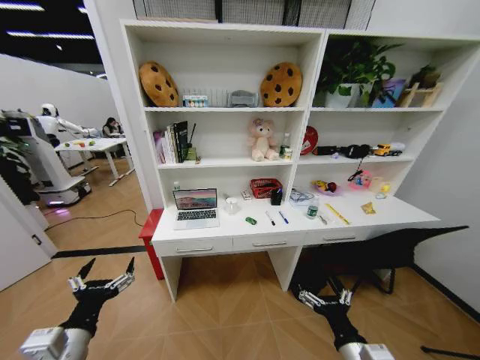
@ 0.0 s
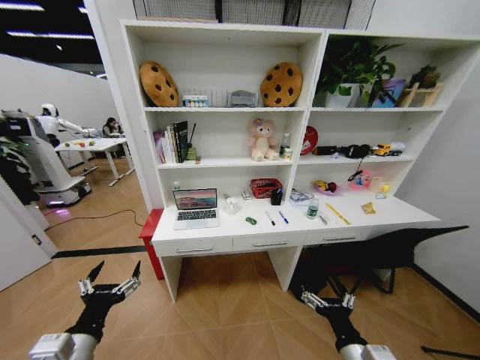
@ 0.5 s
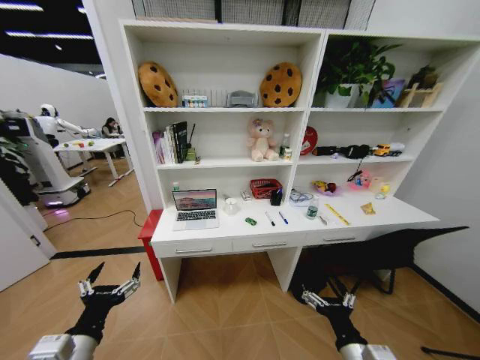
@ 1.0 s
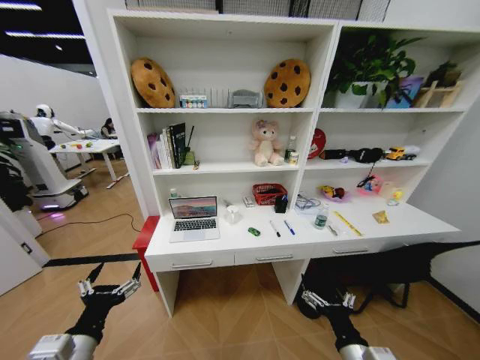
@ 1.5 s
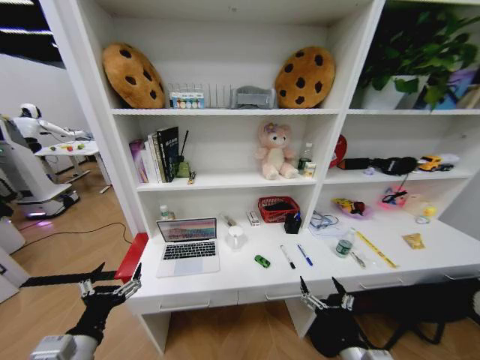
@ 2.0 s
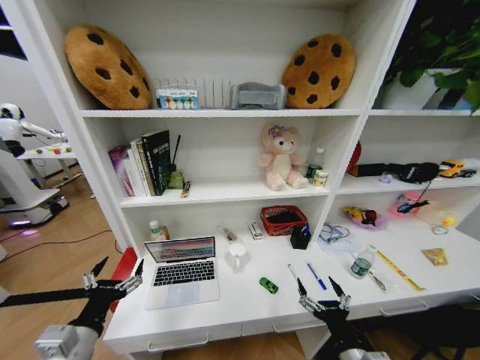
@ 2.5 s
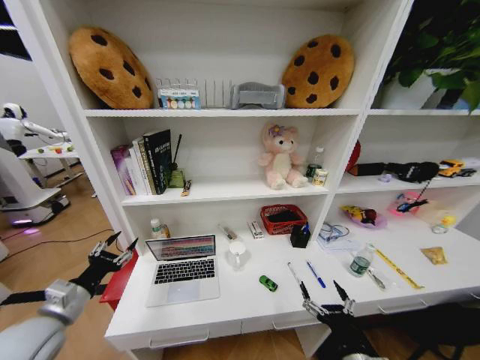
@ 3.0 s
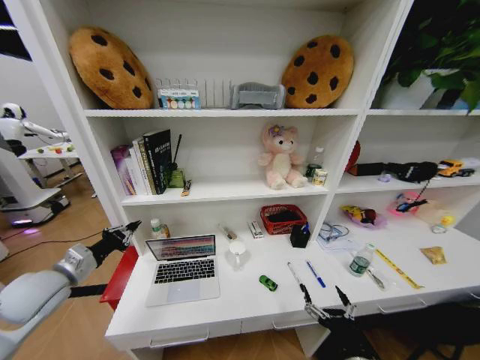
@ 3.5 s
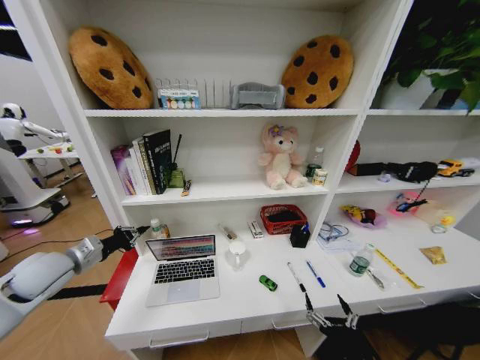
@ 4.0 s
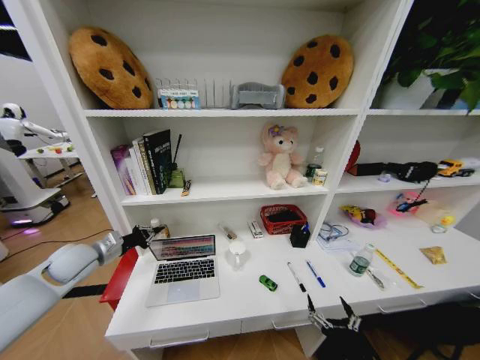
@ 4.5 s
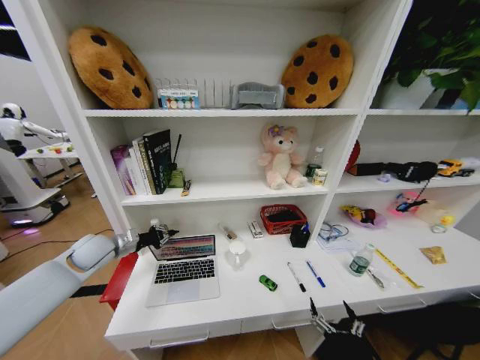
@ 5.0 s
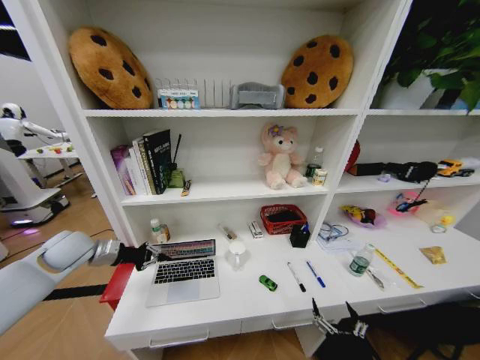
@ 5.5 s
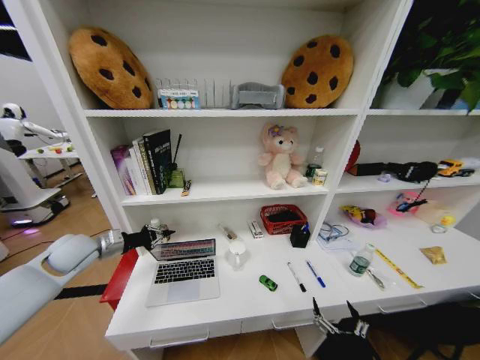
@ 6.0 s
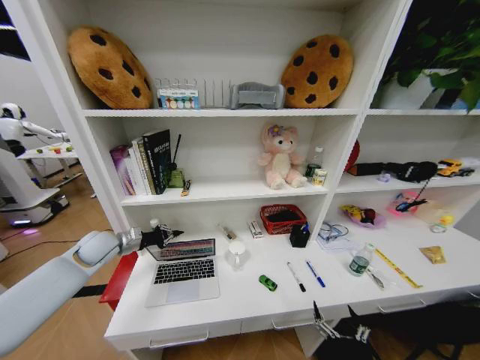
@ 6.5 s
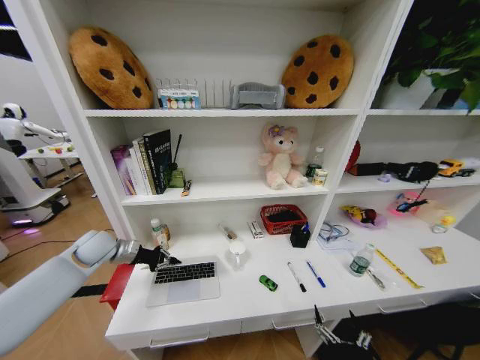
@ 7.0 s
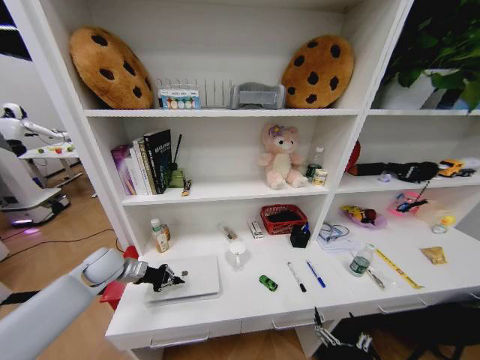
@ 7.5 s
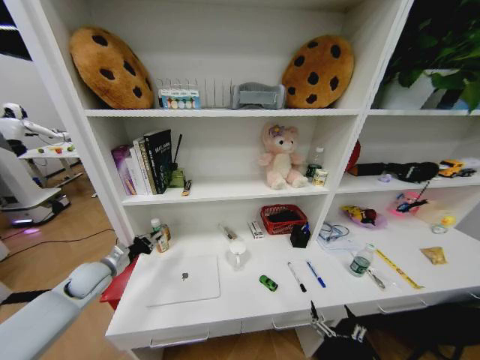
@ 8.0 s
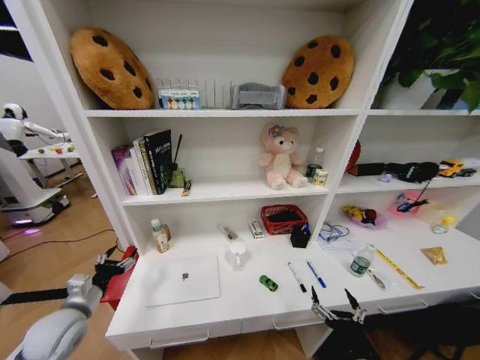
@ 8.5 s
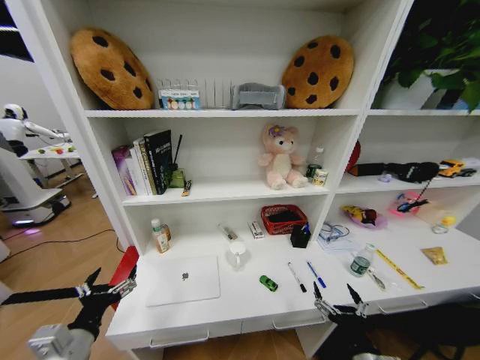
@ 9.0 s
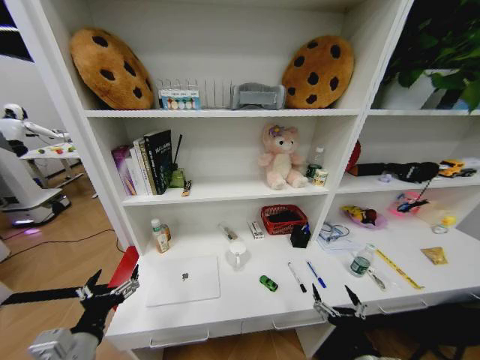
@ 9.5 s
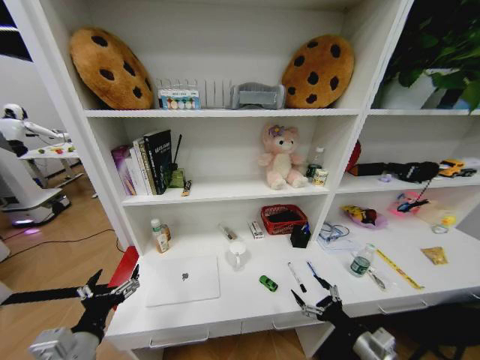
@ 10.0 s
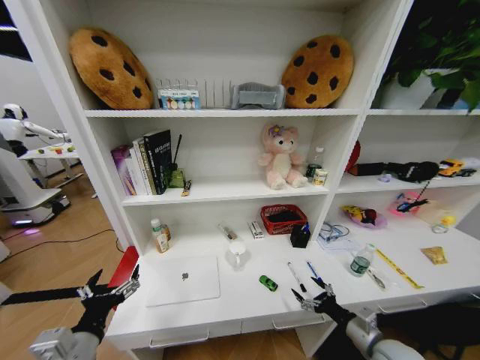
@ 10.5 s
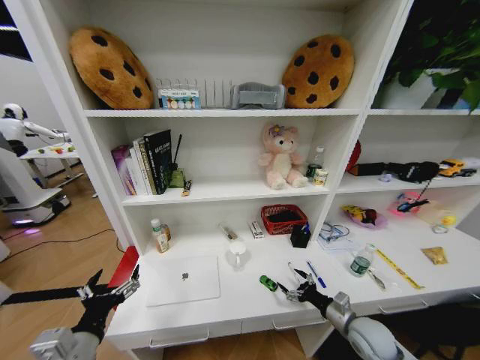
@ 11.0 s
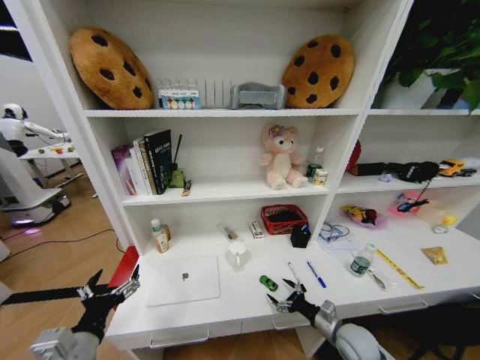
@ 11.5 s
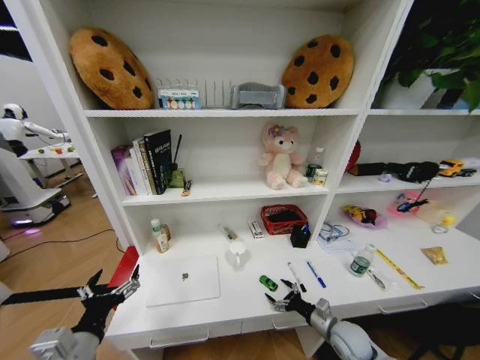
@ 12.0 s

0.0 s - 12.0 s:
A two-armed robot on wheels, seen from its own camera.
Task of the whole recording: Organize the objects on the table.
2.0 s - 4.0 s: The right gripper moves downward, approximately 5 cm. Meanwhile the left gripper goes about 25 cm forward and to the left, and closes its fingers.
4.0 s - 6.0 s: The left gripper travels forward by roughly 5 cm.
6.0 s - 8.0 s: The left gripper goes approximately 10 cm downward.
8.0 s - 10.0 s: The right gripper is displaced to the right and forward by roughly 10 cm. The left gripper travels backward and to the right by roughly 25 cm, and opens its fingers.
10.0 s - 12.0 s: The right gripper shifts about 15 cm forward and downward.

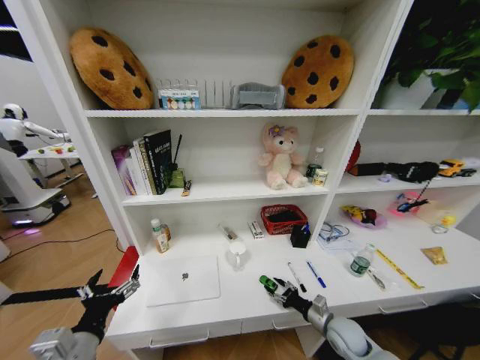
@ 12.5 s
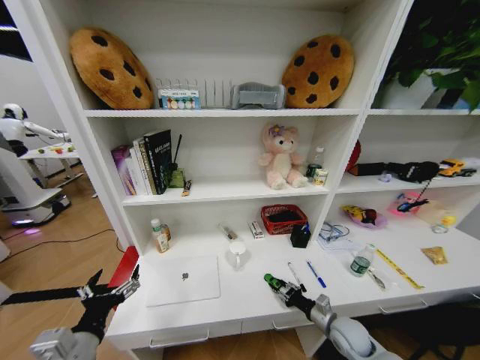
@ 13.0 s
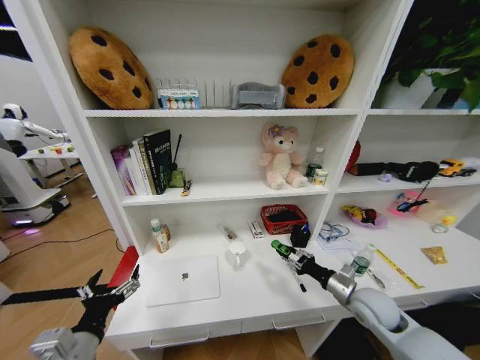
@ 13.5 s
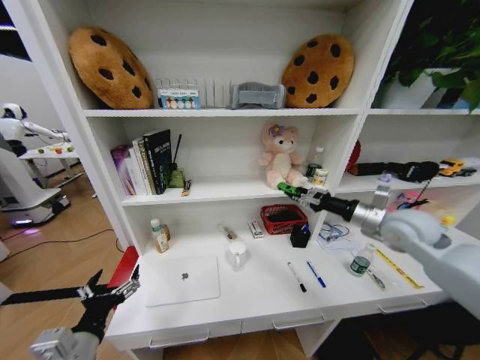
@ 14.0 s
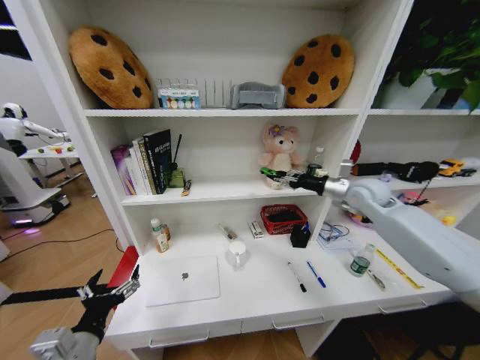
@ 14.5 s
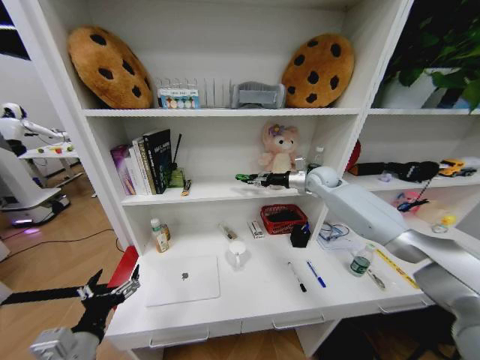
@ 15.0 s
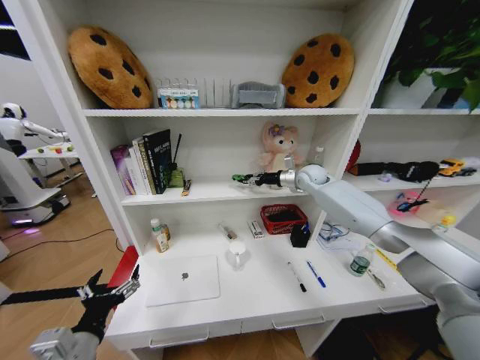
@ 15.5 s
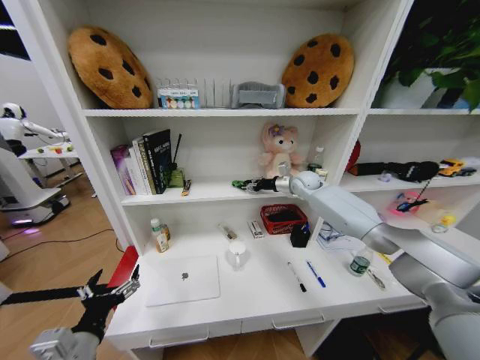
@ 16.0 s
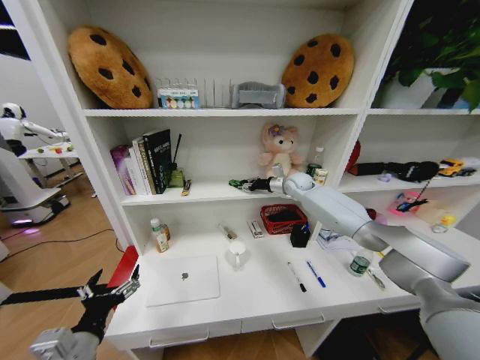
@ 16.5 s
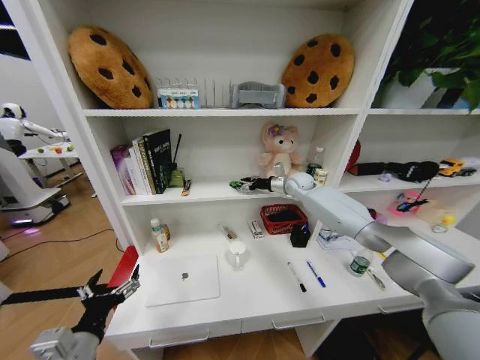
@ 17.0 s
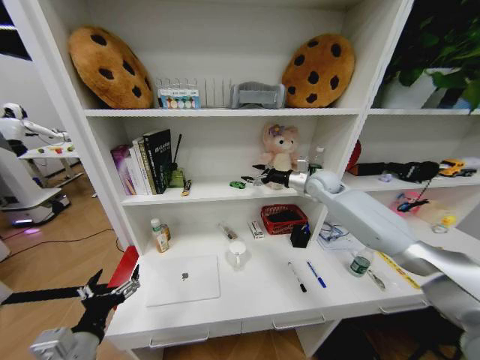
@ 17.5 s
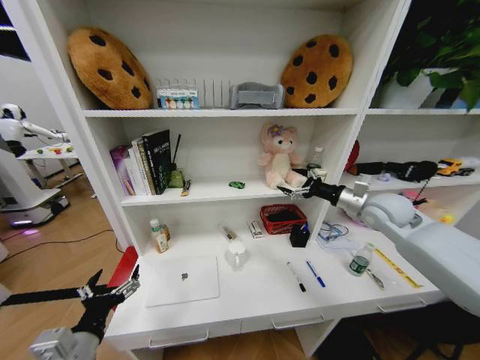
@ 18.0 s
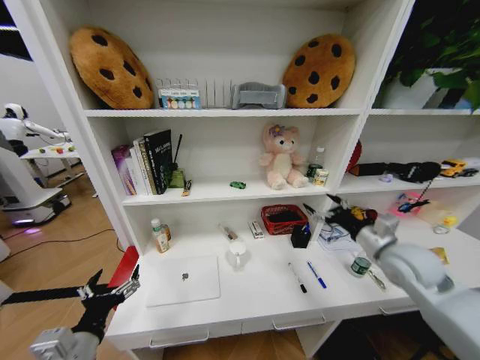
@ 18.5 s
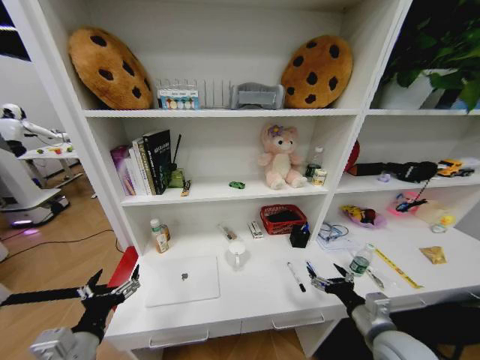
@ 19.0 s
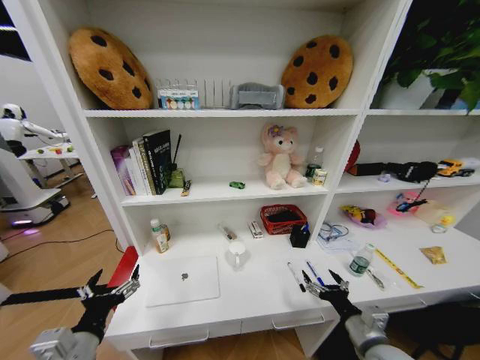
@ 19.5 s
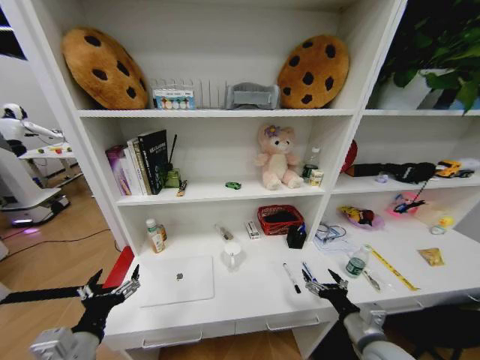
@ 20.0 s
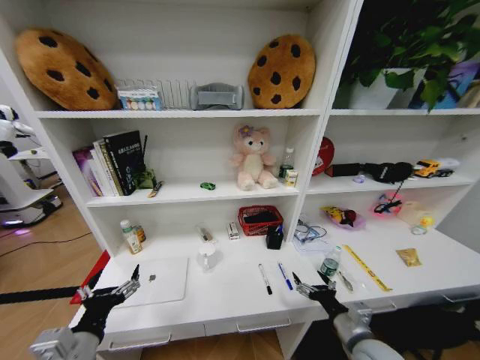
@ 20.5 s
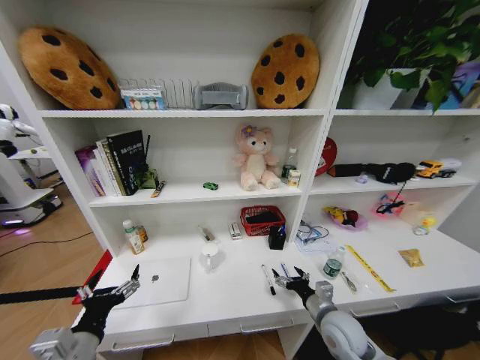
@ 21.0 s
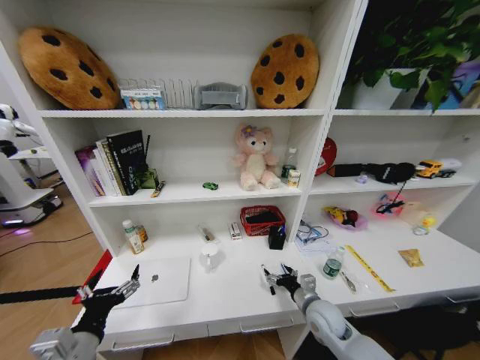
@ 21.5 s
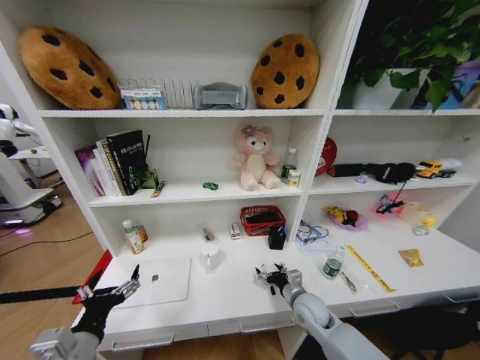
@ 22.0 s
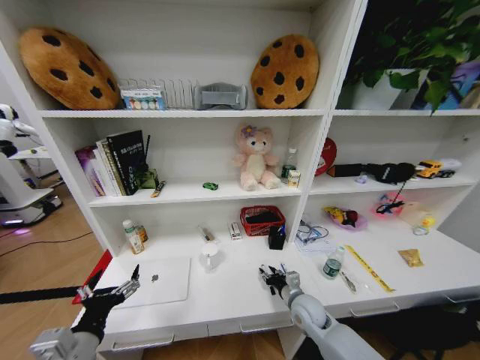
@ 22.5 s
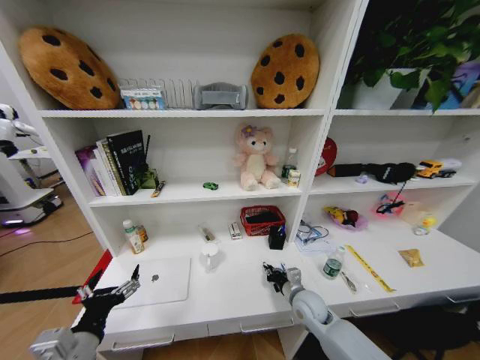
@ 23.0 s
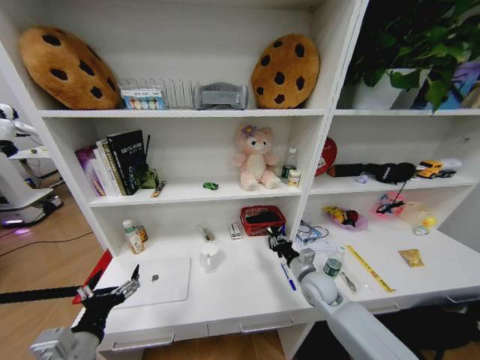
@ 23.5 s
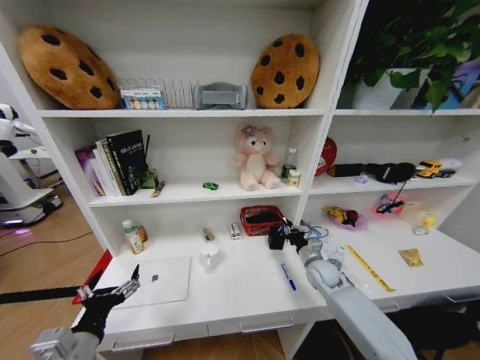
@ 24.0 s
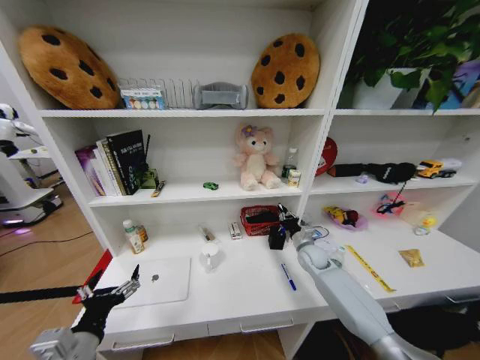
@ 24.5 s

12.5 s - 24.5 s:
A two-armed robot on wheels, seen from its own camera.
Task of the whole recording: Organize the objects on the table.
12.5 s - 14.5 s: The right gripper shifts about 40 cm upward and forward.
14.5 s - 16.5 s: The right gripper travels forward and to the left by roughly 20 cm.
16.5 s - 18.5 s: The right gripper is displaced backward and to the right by about 35 cm, and opens up.
18.5 s - 20.5 s: The right gripper heads downward, backward and to the left, covering about 25 cm.
20.5 s - 22.5 s: The right gripper is displaced forward, to the left and downward by approximately 15 cm, and closes.
22.5 s - 24.5 s: The right gripper goes roughly 15 cm forward and to the right, and closes.

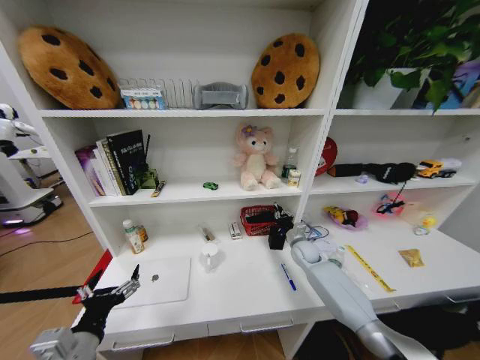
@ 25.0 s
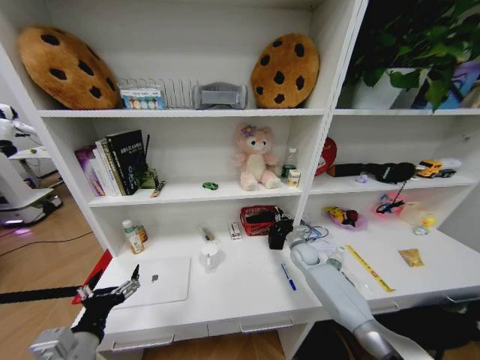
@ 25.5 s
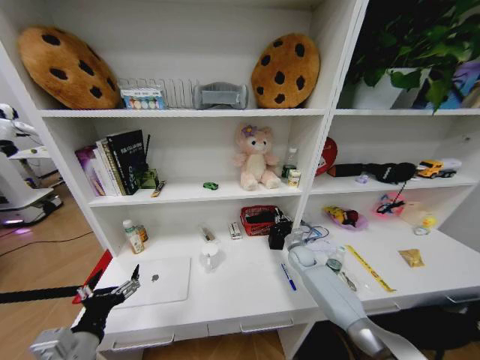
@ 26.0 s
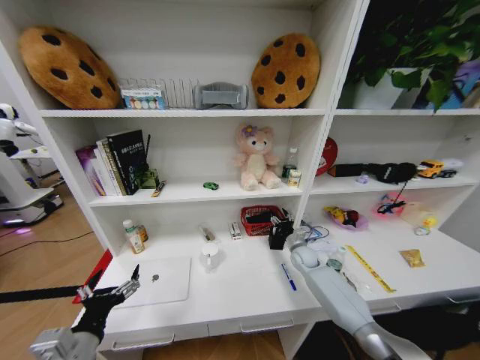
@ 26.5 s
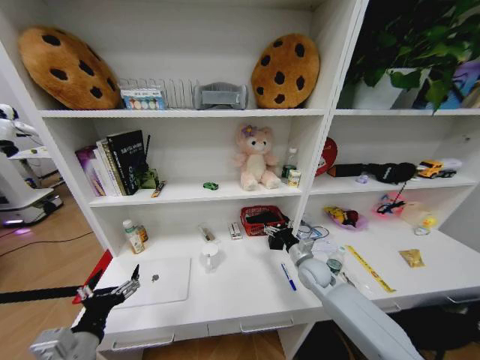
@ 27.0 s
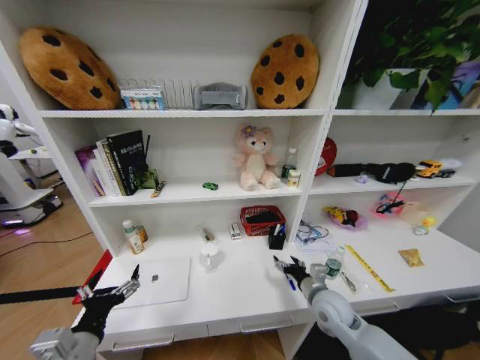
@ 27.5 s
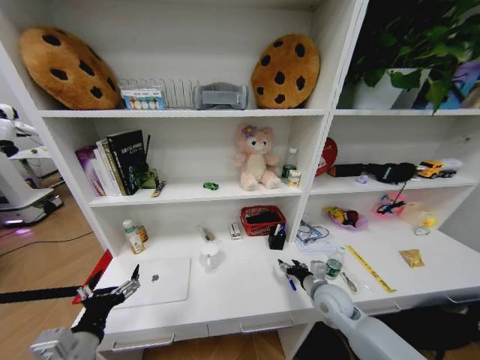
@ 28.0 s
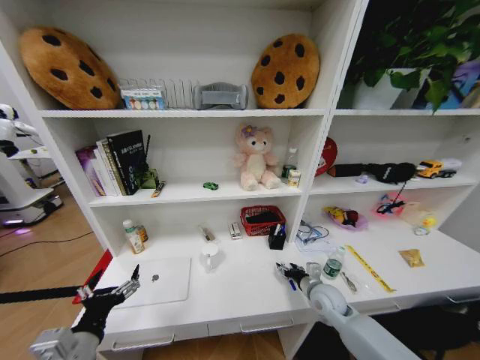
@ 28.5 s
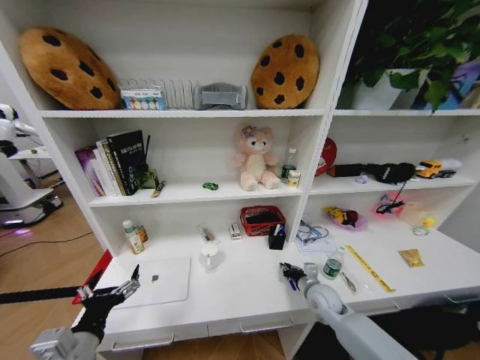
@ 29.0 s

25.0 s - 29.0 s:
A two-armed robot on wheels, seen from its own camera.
Task of the whole recording: Organize the objects on the table.
25.0 s - 27.0 s: The right gripper heads backward, covering roughly 10 cm, and opens up.
27.0 s - 29.0 s: The right gripper shifts about 10 cm backward and downward, and closes up.
